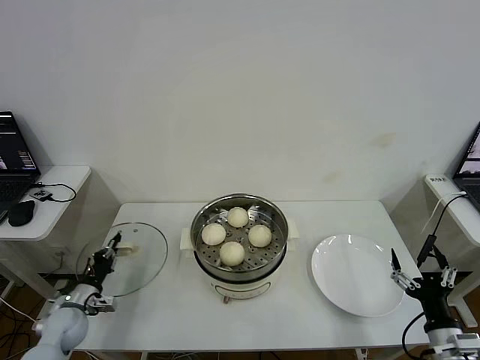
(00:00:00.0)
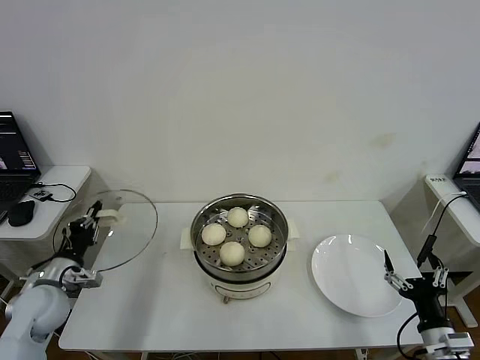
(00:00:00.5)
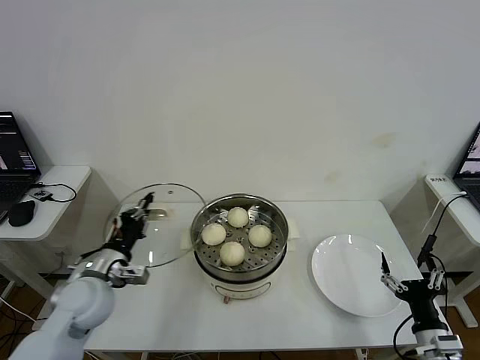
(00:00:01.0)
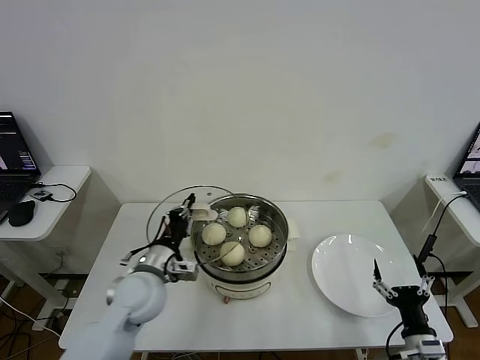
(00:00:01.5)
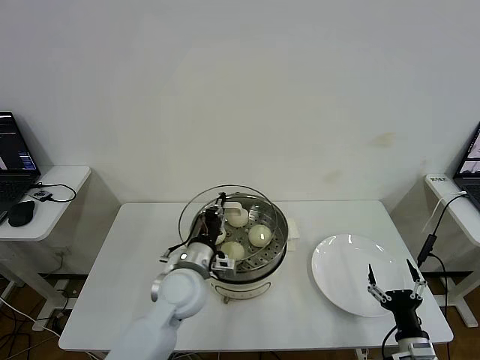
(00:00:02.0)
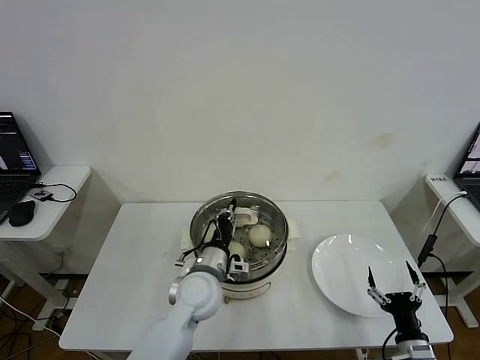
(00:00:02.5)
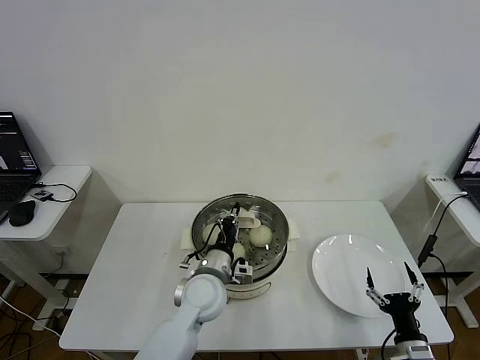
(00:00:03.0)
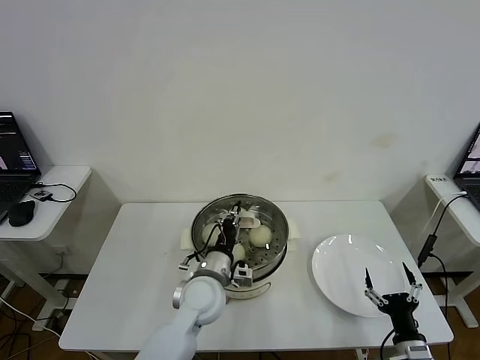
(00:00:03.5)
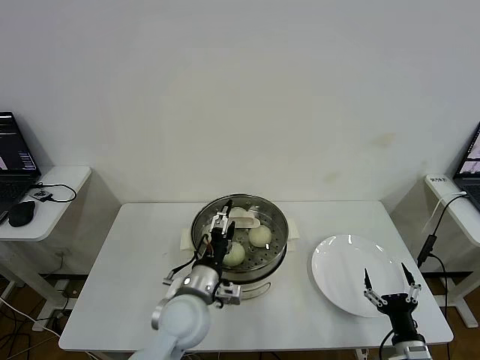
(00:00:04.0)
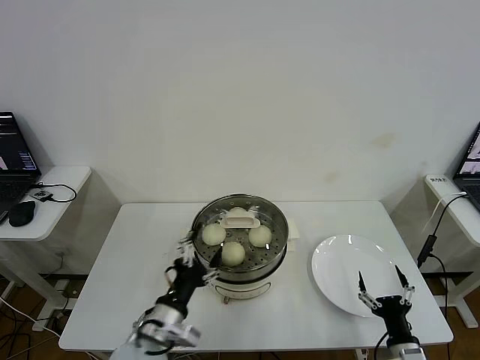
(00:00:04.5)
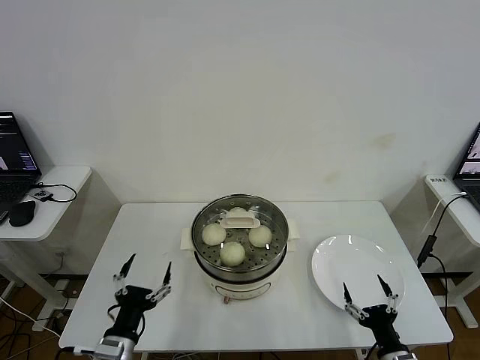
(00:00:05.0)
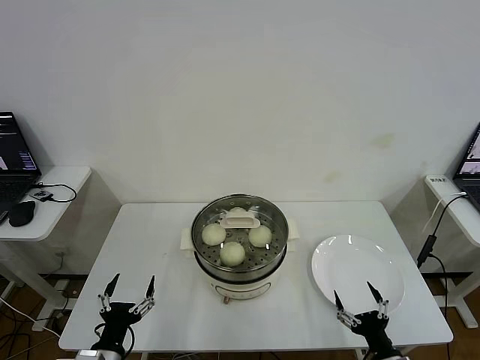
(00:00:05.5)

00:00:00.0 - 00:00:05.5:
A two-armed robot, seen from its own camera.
Step, 00:00:00.0 - 00:00:03.5: Place the pot lid on the steamer with left gripper.
00:00:00.0 - 00:00:02.0: The left gripper moves to the right and upward, approximately 35 cm. The right gripper shifts approximately 5 cm downward.
00:00:02.0 - 00:00:03.5: The left gripper moves some 5 cm.
00:00:03.5 - 00:00:05.5: The right gripper moves approximately 5 cm; the left gripper goes approximately 30 cm to the left and backward, and opens up.
